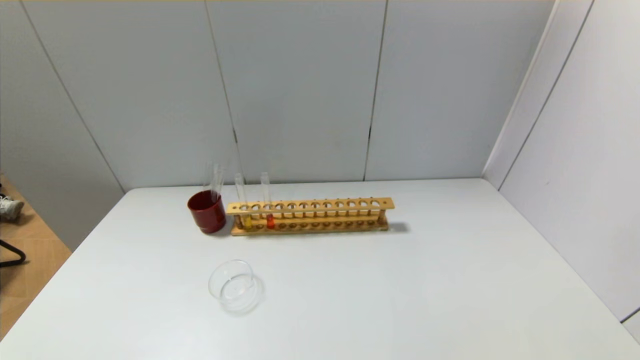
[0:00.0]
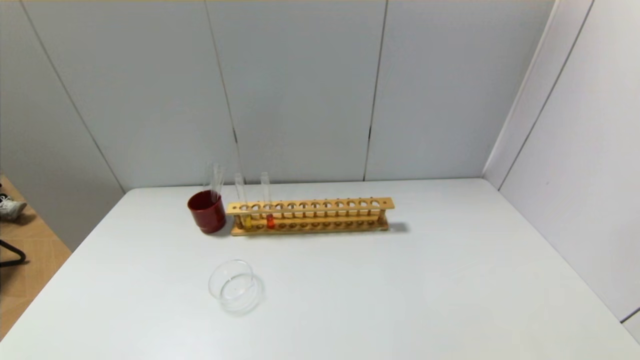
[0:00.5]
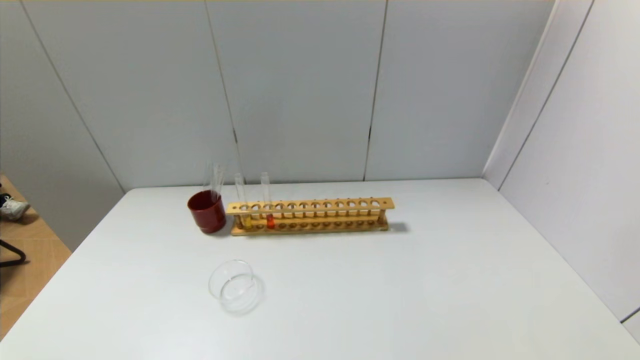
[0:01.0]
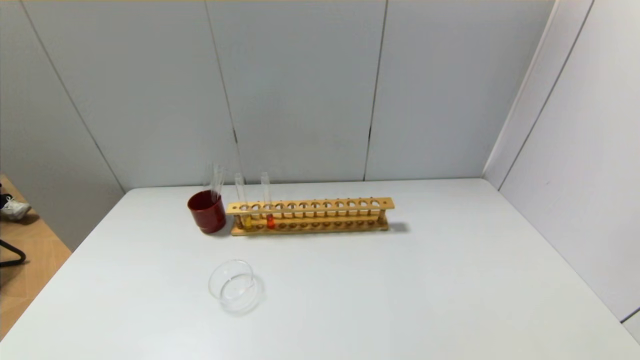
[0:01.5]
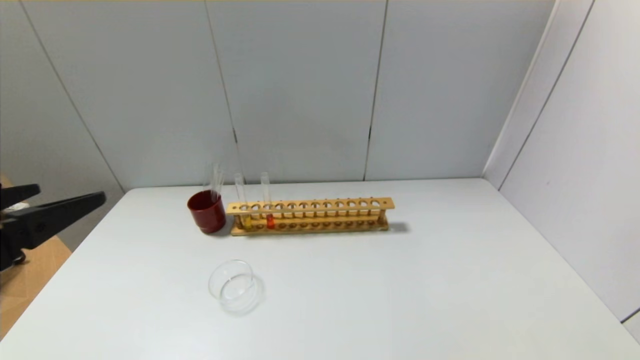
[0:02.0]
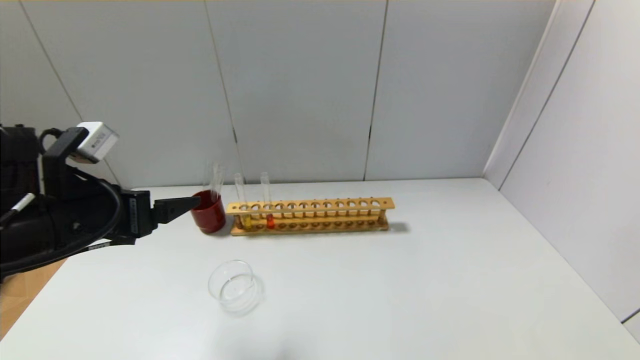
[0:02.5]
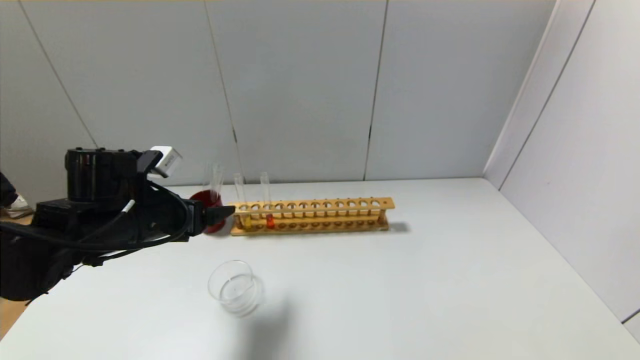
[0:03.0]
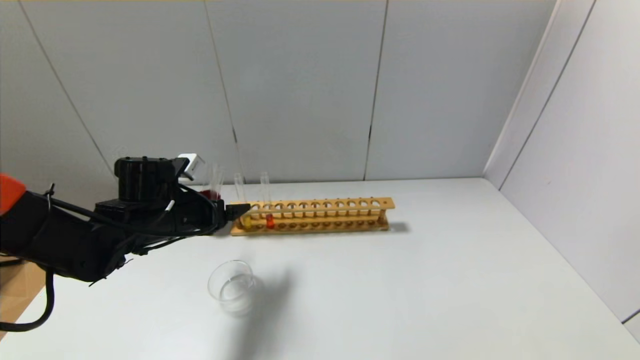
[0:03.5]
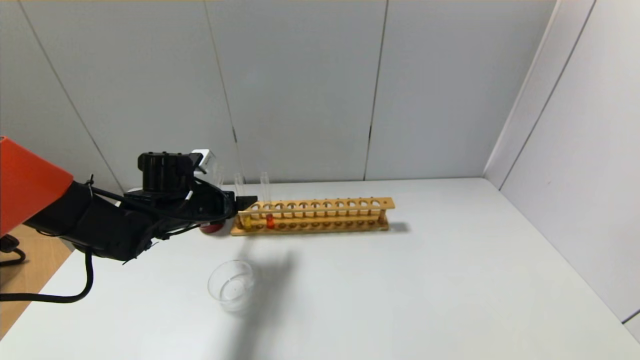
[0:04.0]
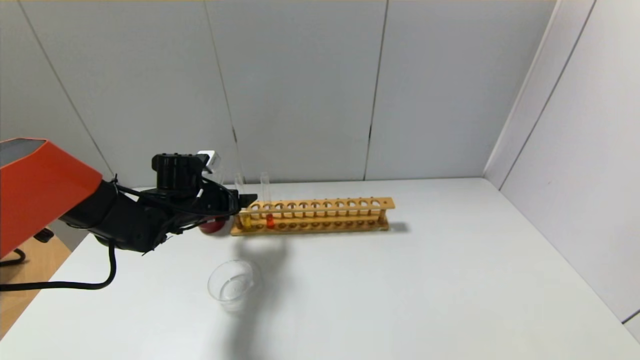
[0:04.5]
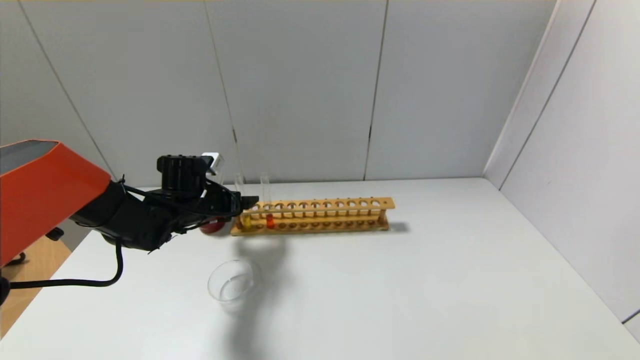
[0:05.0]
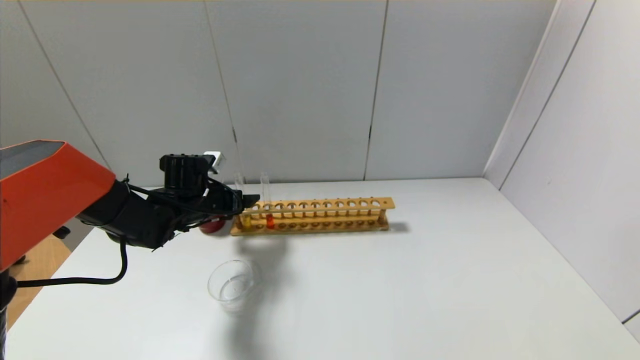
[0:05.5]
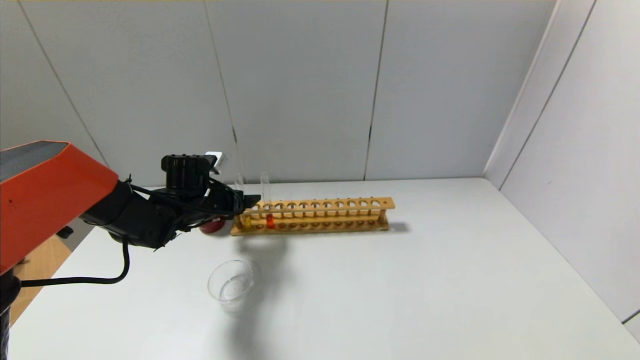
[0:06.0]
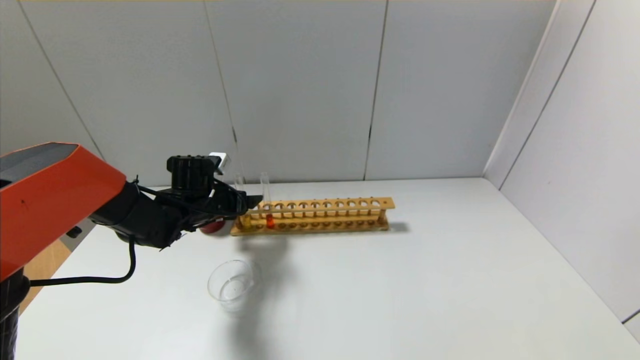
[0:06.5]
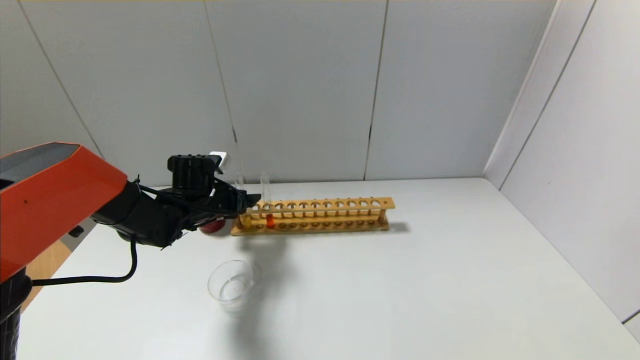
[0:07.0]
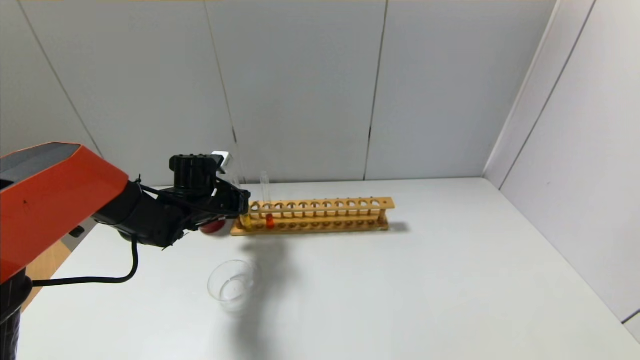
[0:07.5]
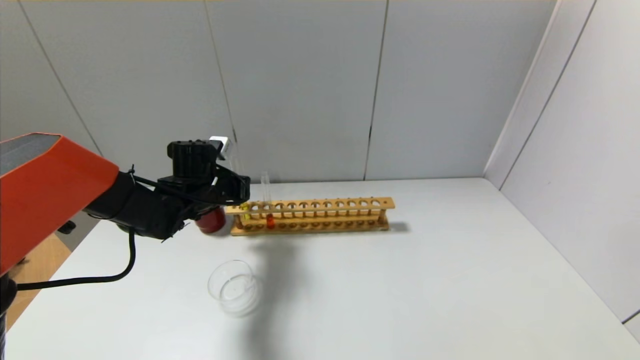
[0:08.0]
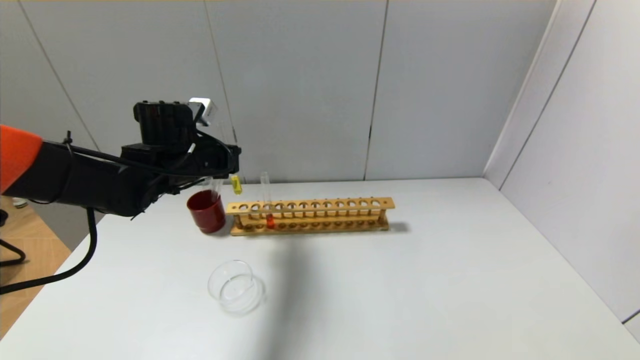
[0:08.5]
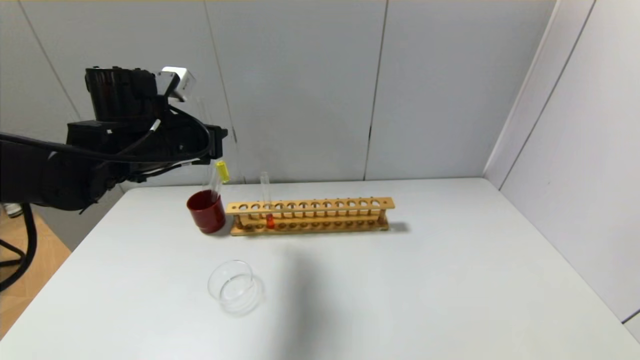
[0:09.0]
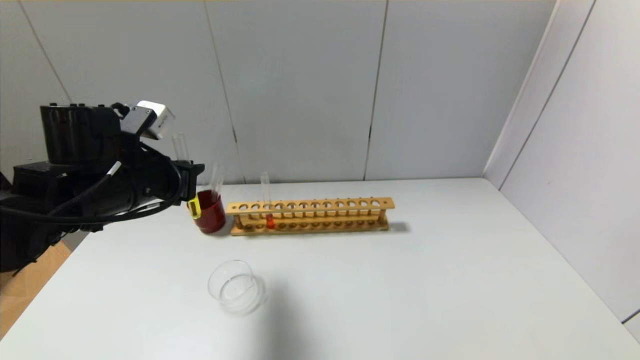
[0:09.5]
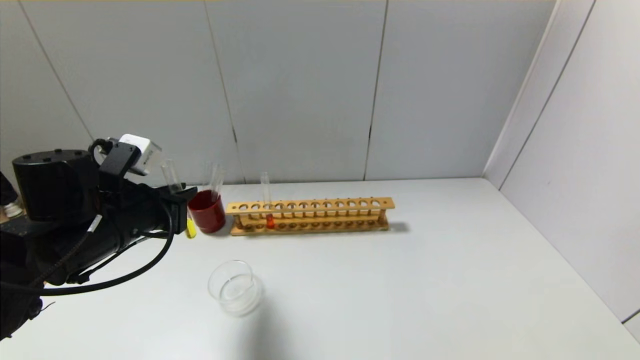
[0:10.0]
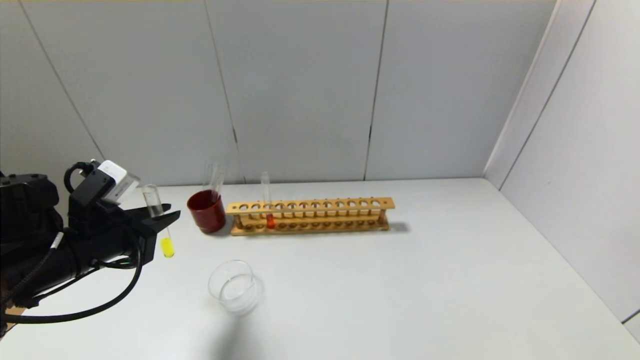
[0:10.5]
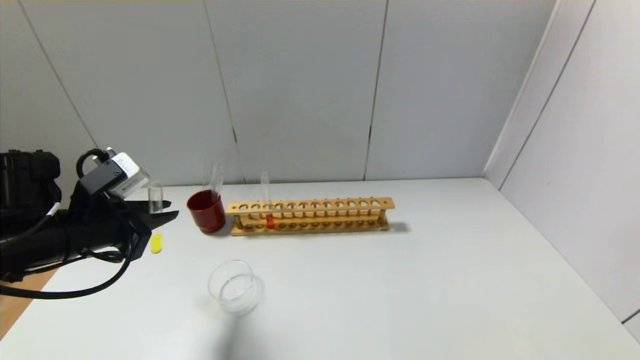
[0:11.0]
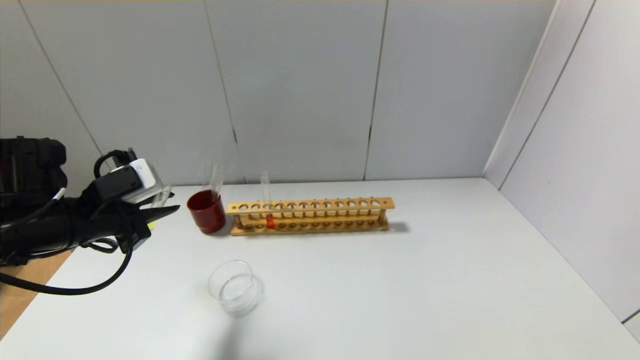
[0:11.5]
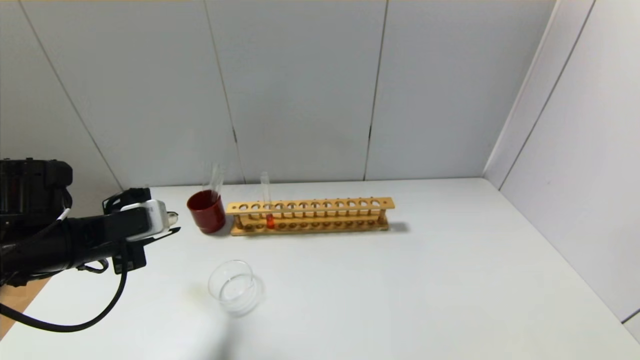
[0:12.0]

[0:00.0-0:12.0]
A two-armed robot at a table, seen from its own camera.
Step, 0:00.0 to 0:07.5: Grasp the yellow reagent with the left gripper.
0:00.0 to 0:02.0: The left gripper goes some 25 cm upward and forward.
0:02.0 to 0:04.0: The left gripper travels forward and downward by about 30 cm.
0:04.0 to 0:06.0: The grippers make only small movements.
0:06.0 to 0:08.0: The left gripper closes up.
0:08.0 to 0:10.0: The left gripper is displaced backward by roughly 15 cm.
0:10.0 to 0:12.0: The left gripper travels to the left by about 5 cm.

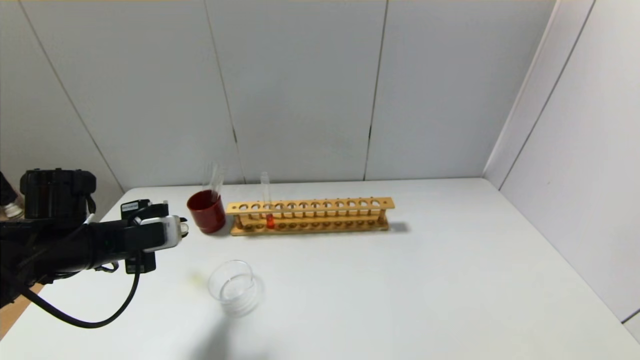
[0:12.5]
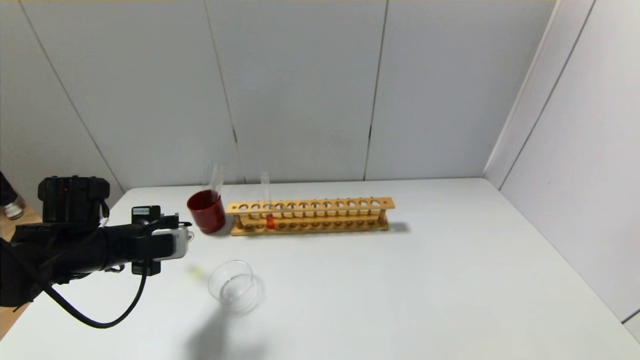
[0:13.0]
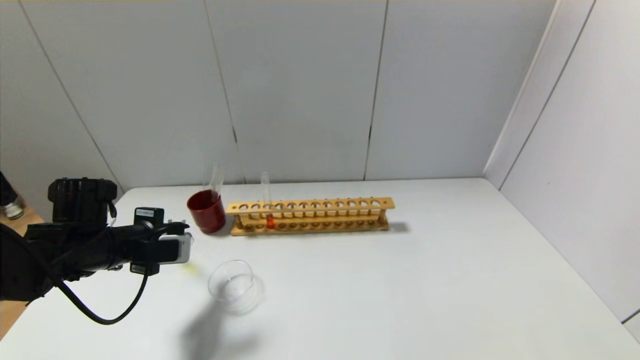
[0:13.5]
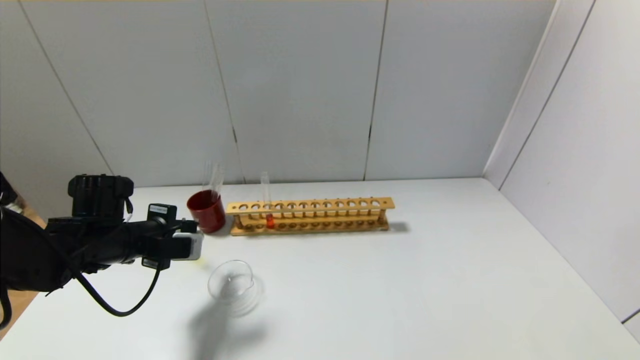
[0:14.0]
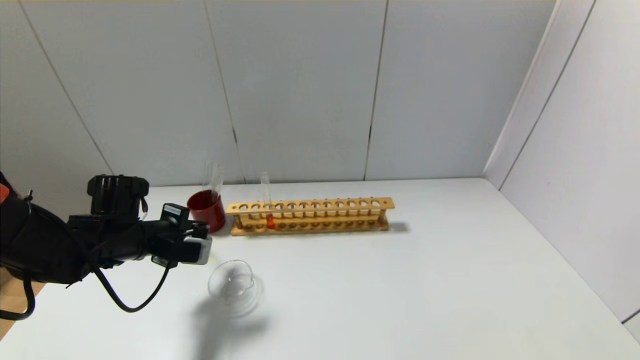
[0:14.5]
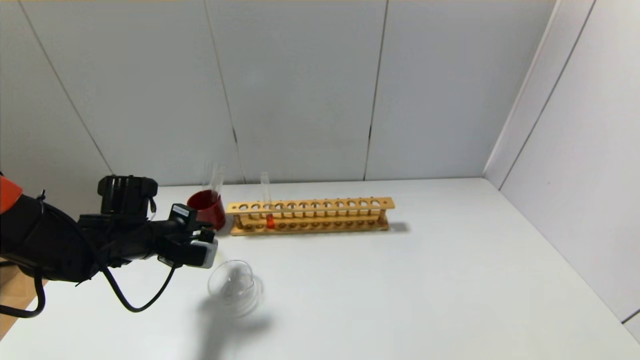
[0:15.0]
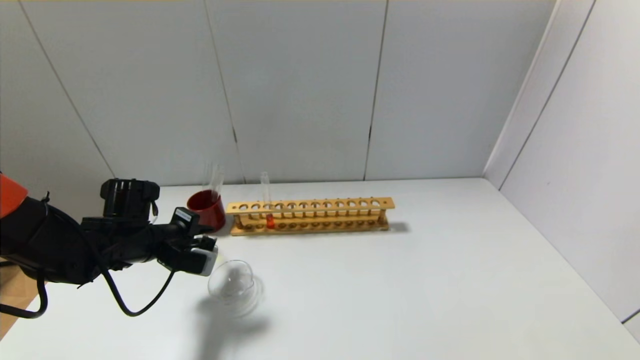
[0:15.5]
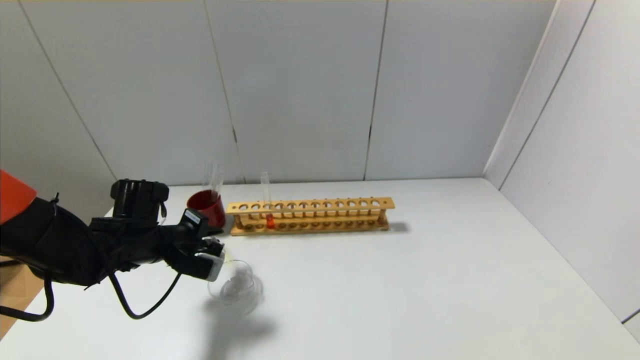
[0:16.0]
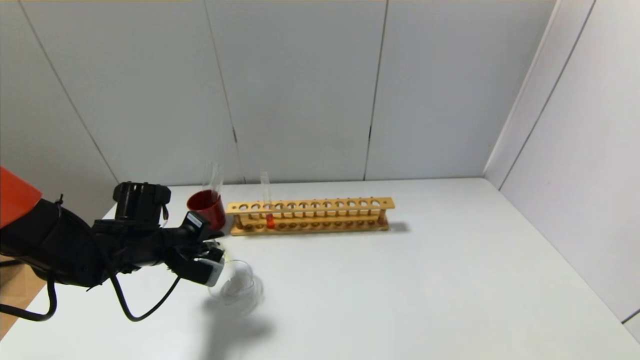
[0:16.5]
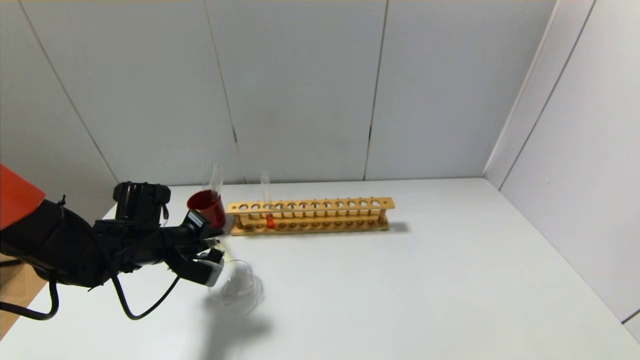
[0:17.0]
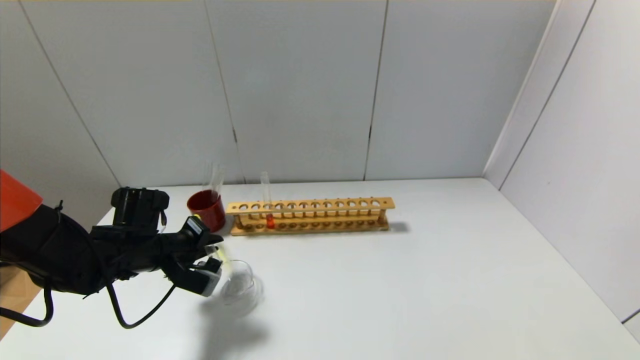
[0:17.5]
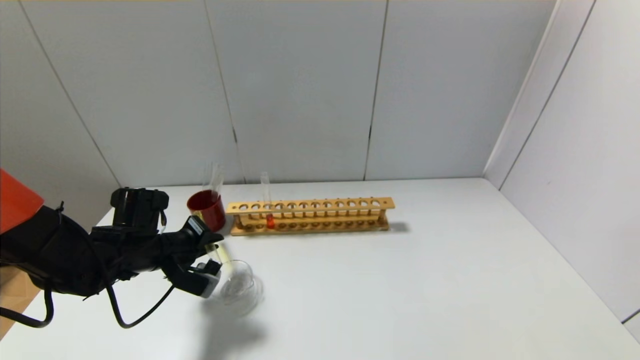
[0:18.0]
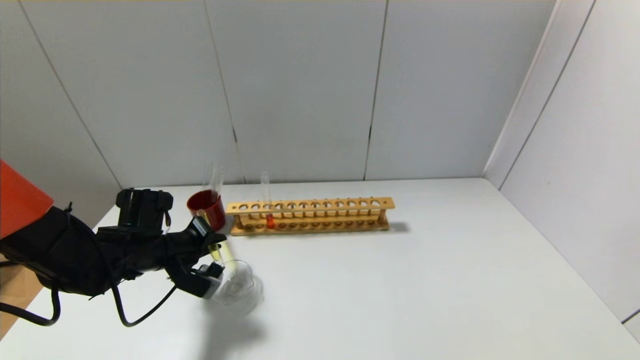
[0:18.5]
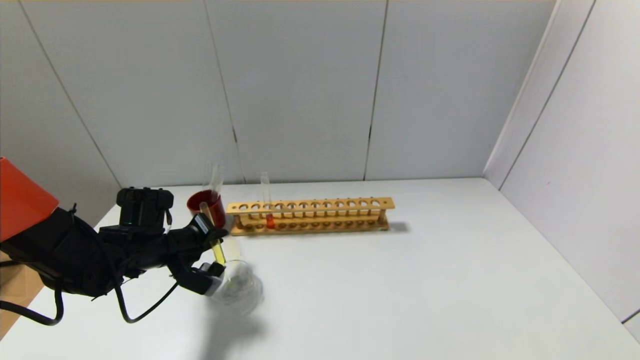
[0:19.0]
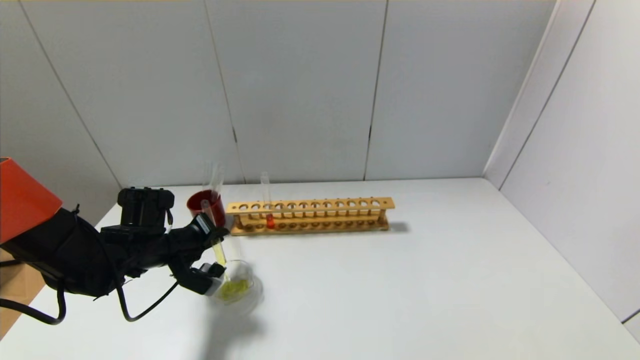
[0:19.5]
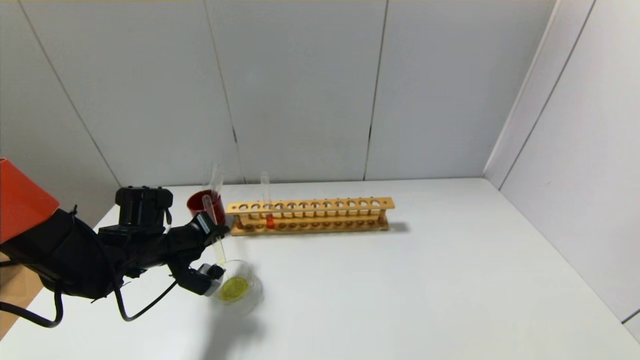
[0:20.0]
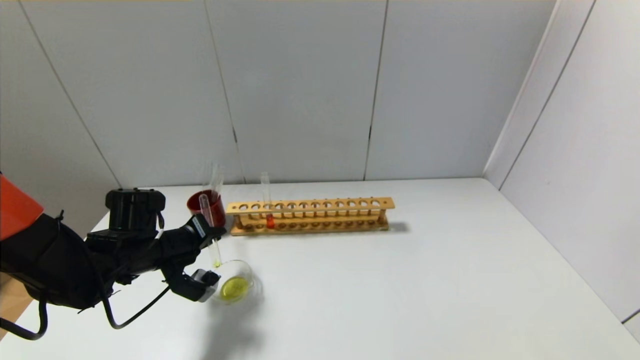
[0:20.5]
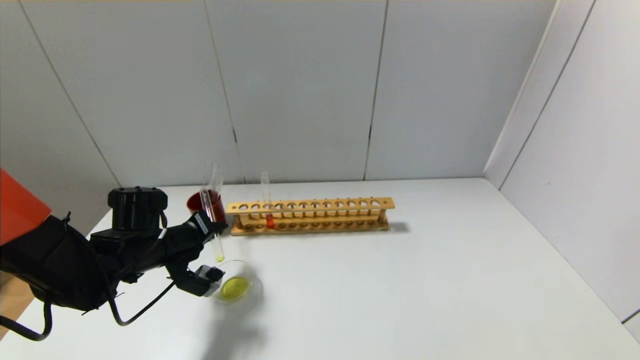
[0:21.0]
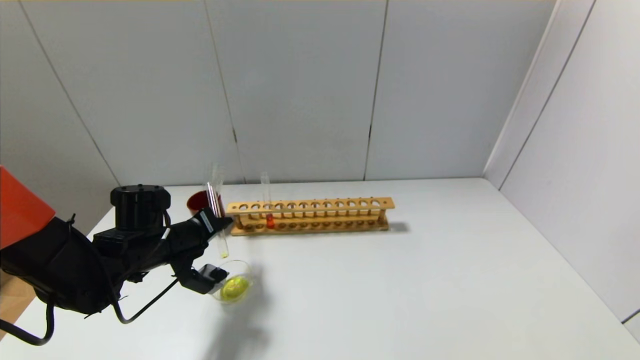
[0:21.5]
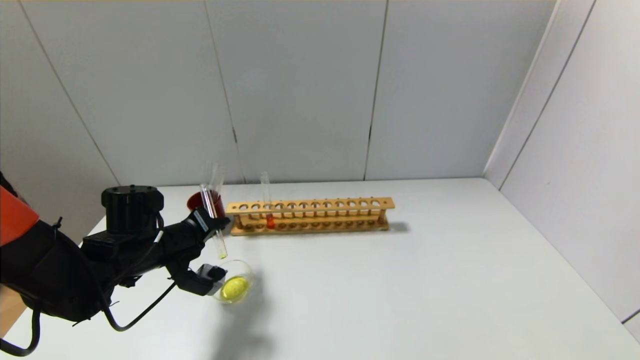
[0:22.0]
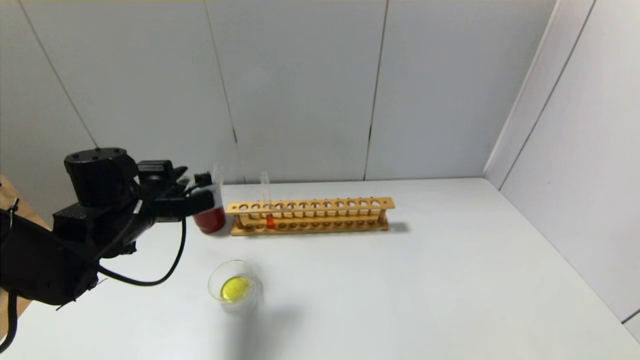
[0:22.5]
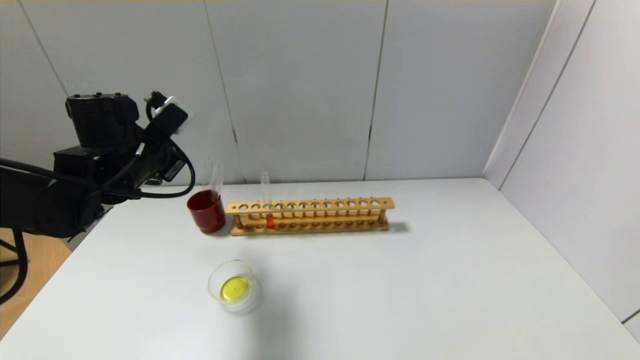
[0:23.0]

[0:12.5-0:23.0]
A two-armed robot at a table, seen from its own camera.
Step, 0:12.5 to 0:22.0: Pour the yellow reagent into the graduated cylinder with the left gripper.
0:12.5 to 0:14.5: The left gripper goes roughly 5 cm forward.
0:14.5 to 0:16.5: The grippers make only small movements.
0:16.5 to 0:19.0: The grippers make only small movements.
0:19.0 to 0:21.0: The grippers make only small movements.
0:21.0 to 0:23.0: The left gripper moves upward, approximately 15 cm.
